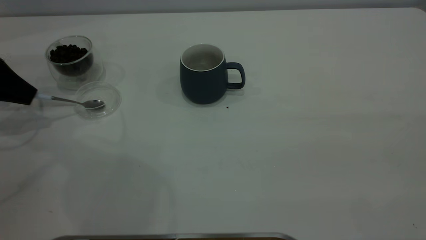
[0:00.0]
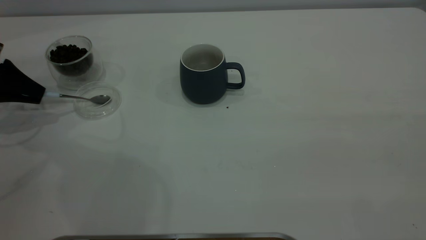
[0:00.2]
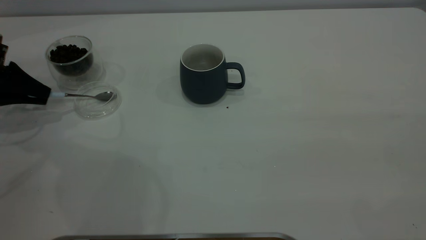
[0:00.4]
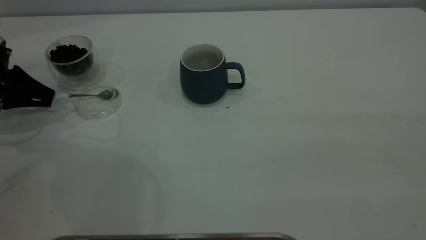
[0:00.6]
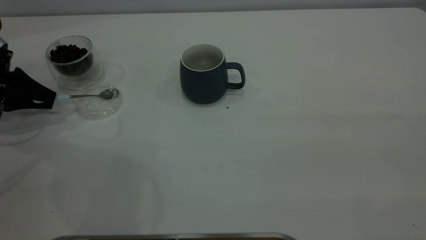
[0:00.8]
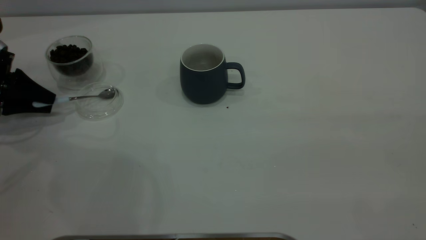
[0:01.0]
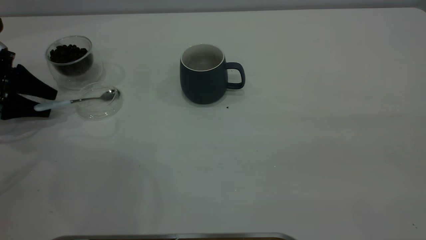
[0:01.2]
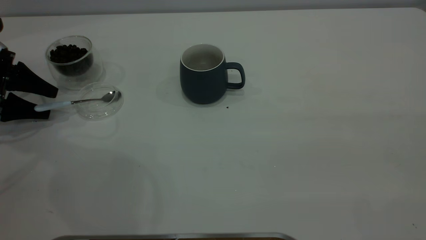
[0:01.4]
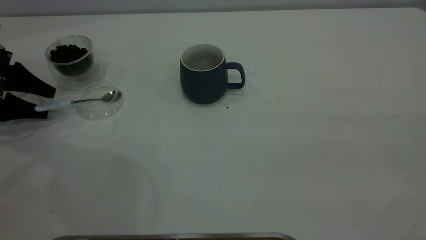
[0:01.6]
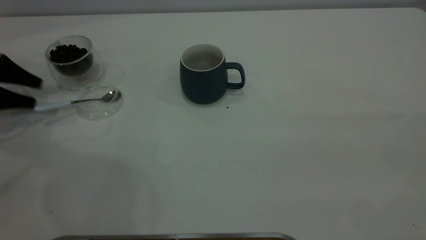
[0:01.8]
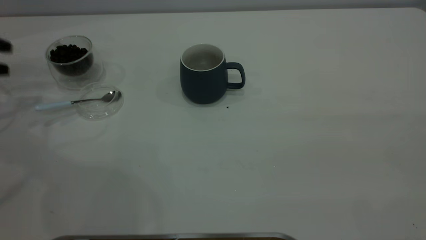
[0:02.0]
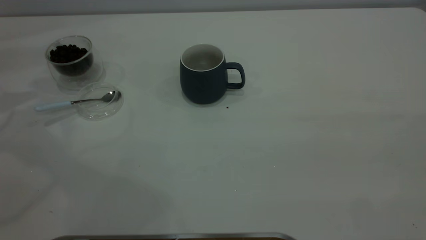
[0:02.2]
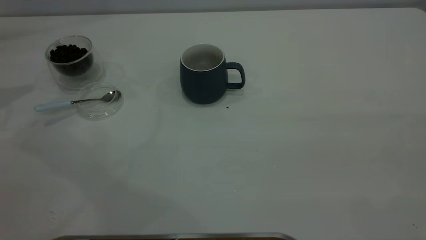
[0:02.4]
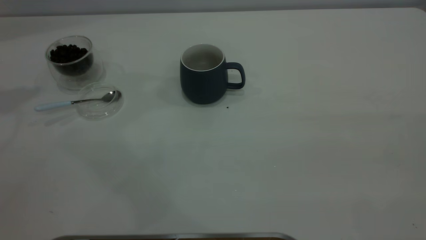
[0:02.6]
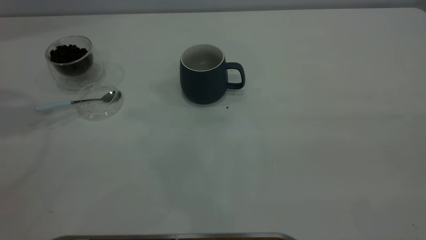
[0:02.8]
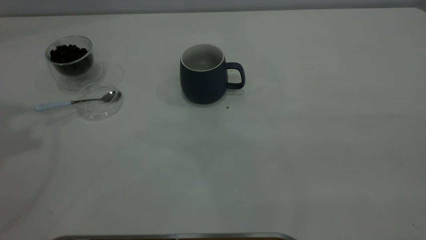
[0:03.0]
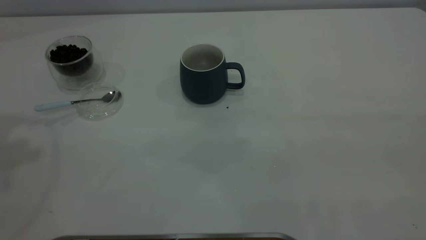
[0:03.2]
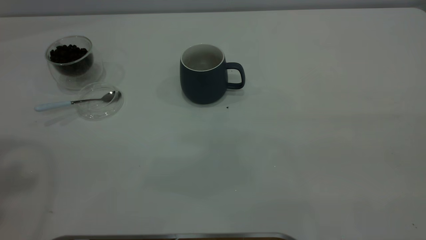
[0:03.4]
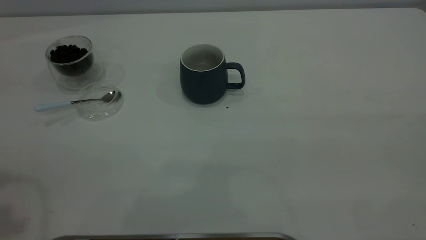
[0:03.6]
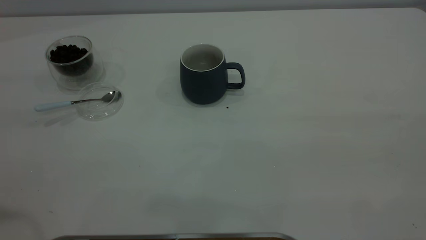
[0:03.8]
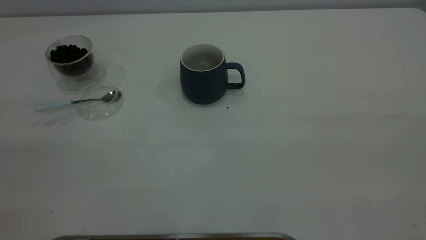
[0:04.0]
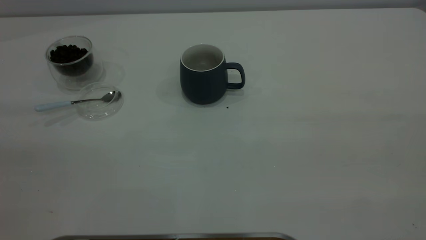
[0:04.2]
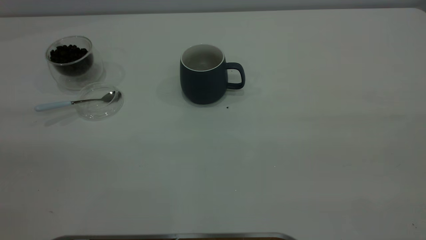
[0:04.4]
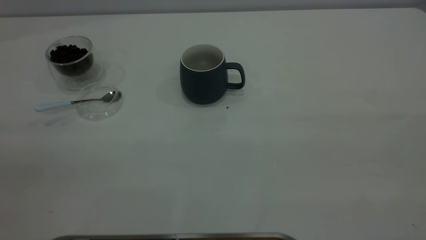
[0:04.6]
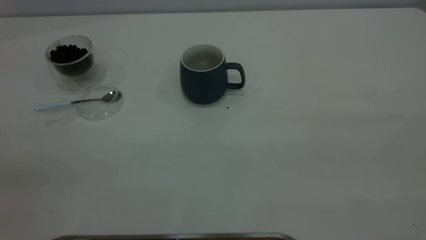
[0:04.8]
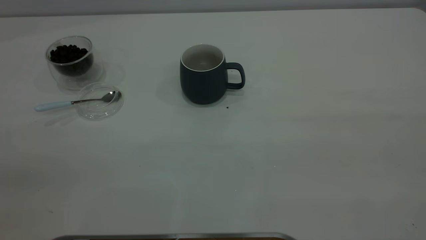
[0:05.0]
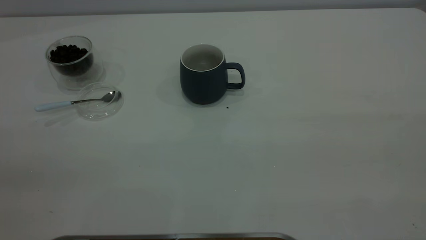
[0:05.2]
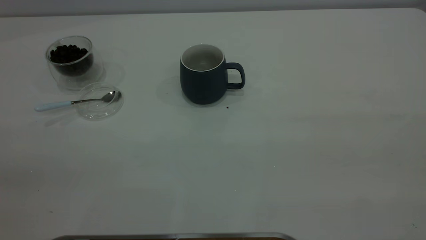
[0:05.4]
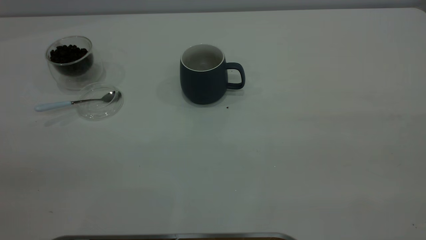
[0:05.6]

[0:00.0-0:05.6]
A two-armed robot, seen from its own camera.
Task of the whole recording: the right gripper place the grey cup in the center of the table, the left gripper take the blue spoon from the cup lid and scoop out the coffee beans from the coffee cup and put them into the grey cup, the left gripper put the spoon back into the cup lid.
Step, 0:00.0 to 0:01.8: Place the spoon back in its original place.
0:00.0 to 0:01.4: The left gripper opens.
0:01.4 to 0:02.8: The left gripper goes roughly 35 cm upward.
